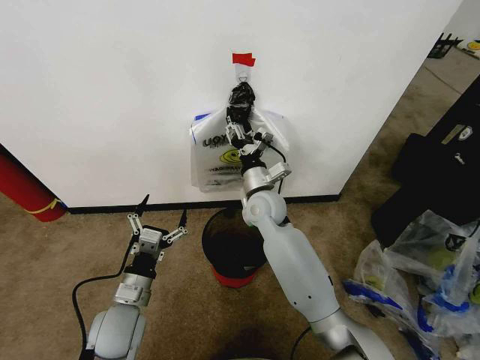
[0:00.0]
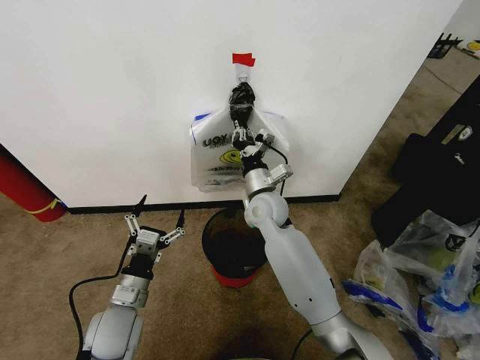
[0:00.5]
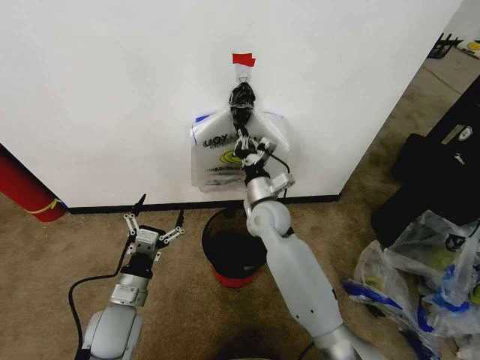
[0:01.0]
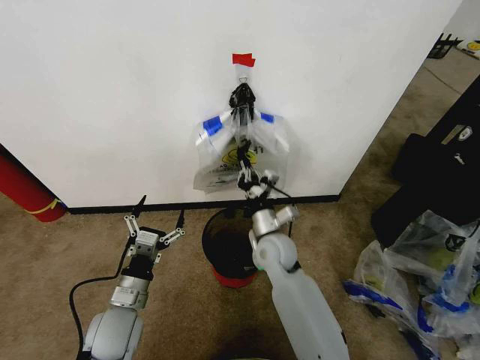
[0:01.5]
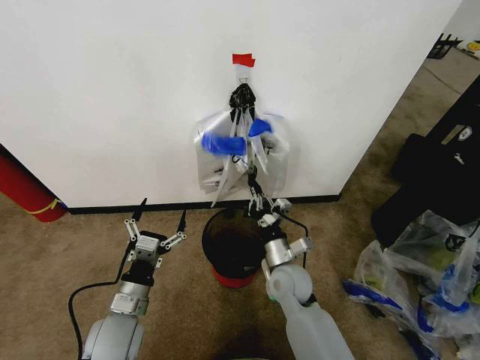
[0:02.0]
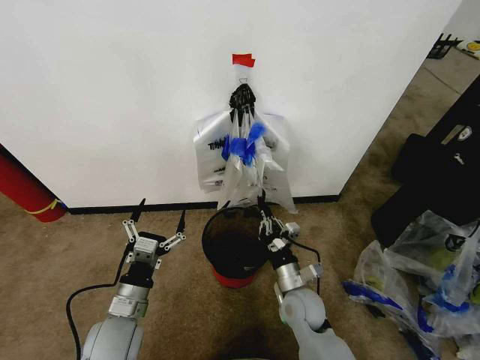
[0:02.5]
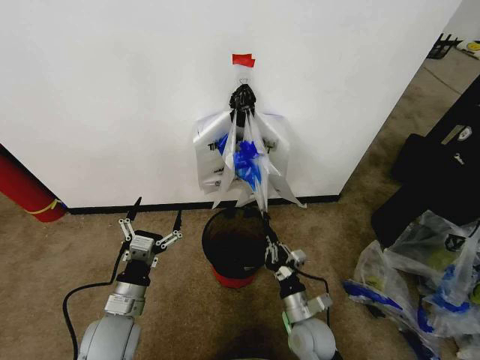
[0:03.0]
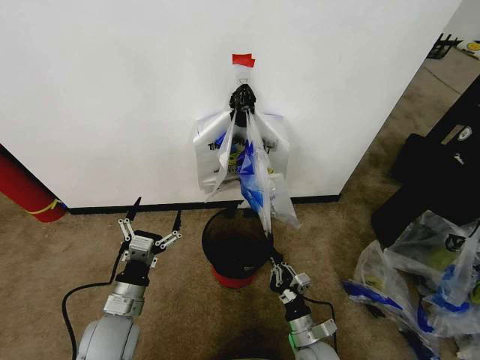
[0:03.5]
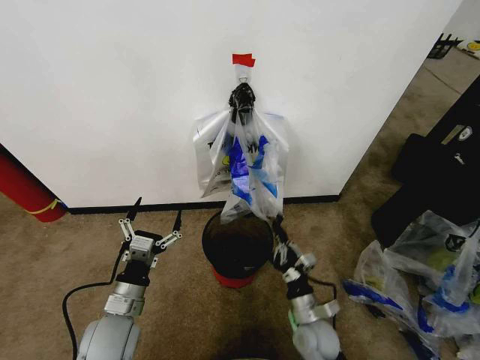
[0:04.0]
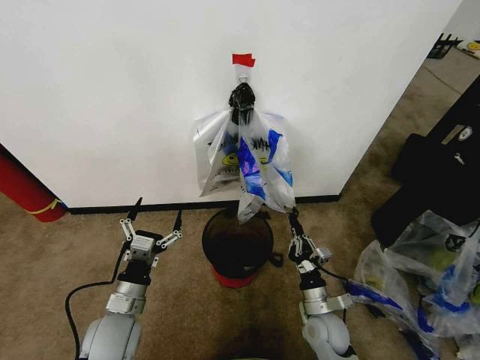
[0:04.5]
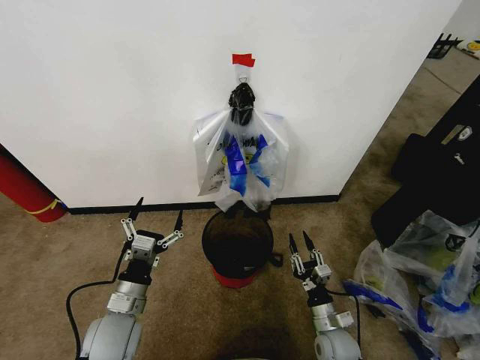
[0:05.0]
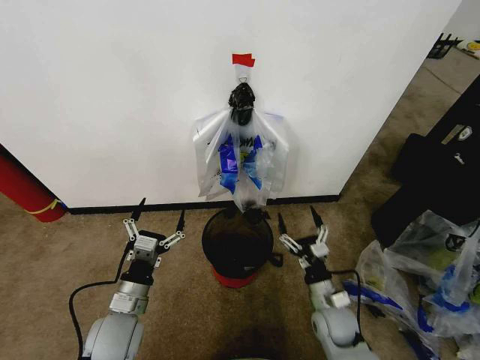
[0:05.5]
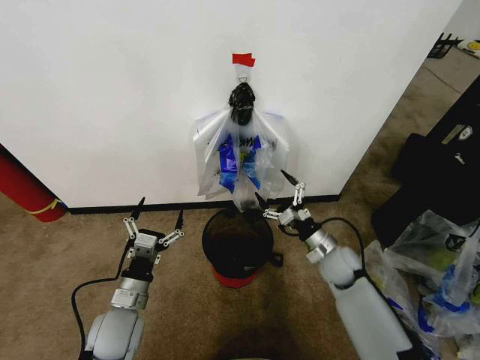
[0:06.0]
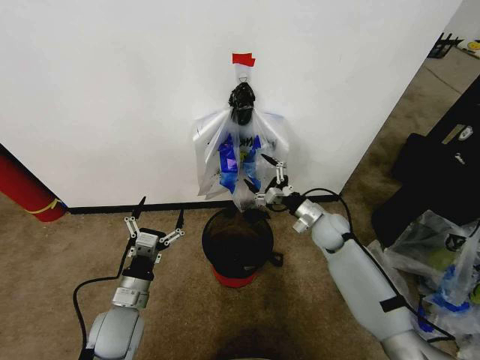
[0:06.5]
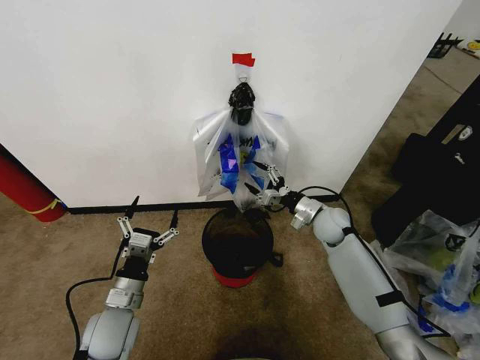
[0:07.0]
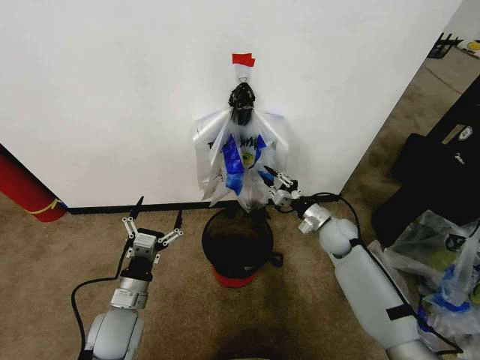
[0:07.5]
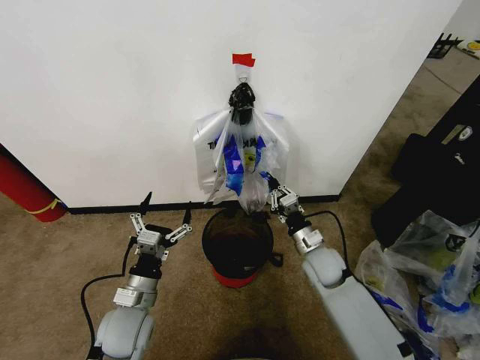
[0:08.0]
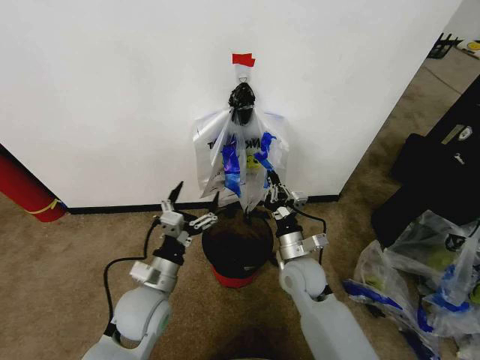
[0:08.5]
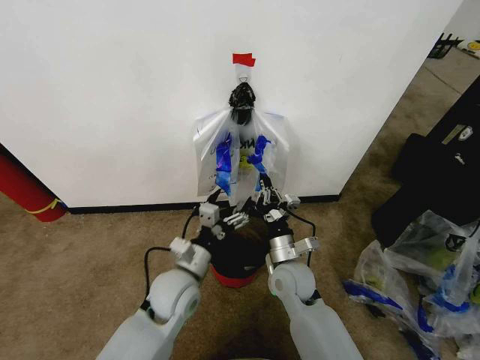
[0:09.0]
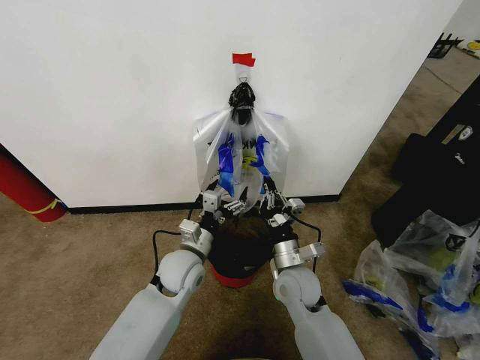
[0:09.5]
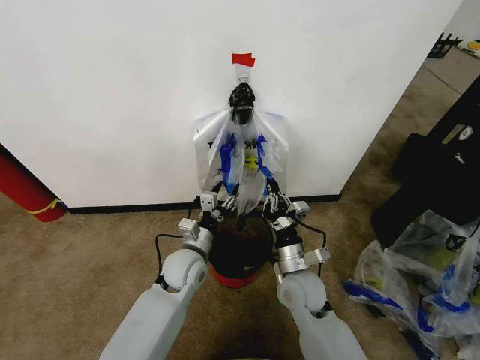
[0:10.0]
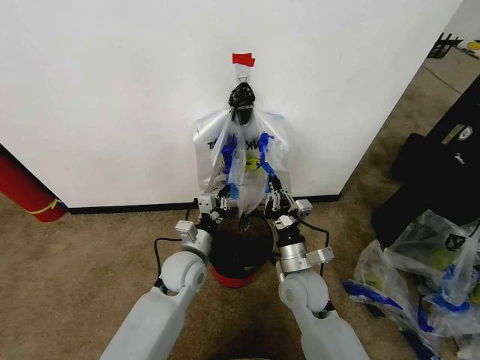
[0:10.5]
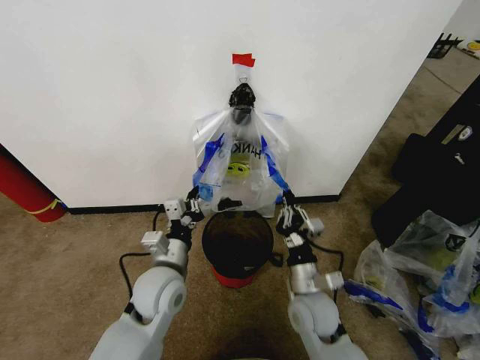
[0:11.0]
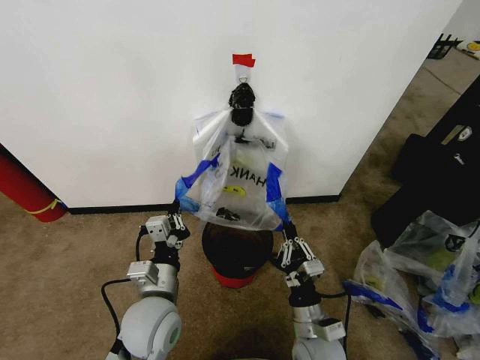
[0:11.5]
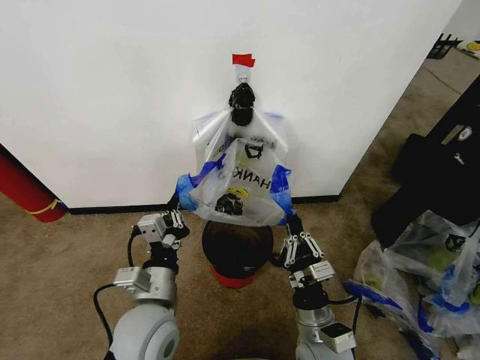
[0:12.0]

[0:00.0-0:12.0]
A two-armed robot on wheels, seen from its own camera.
Task of the whole recording: Pick up the garbage bag from the wall and place it over the trash bin.
0:00.0 to 0:02.0: The right gripper moves backward, downward and to the right, some 20 cm, and closes.
0:02.0 to 0:04.0: The right gripper heads downward, backward and to the right, covering approximately 15 cm.
0:04.0 to 0:06.0: The right gripper moves forward, upward and to the right, approximately 15 cm, and opens up.
0:06.0 to 0:08.0: The right gripper travels forward and back again, about 10 cm each way, and closes up.
0:08.0 to 0:10.0: The right gripper is displaced to the left and backward by approximately 10 cm, while the left gripper is displaced forward and to the right by some 15 cm, and closes its fingers.
0:10.0 to 0:12.0: The left gripper moves backward and upward, roughly 15 cm, and closes up. Meanwhile the right gripper is displaced backward by approximately 10 cm.

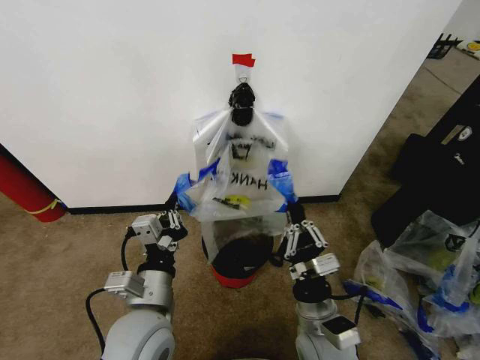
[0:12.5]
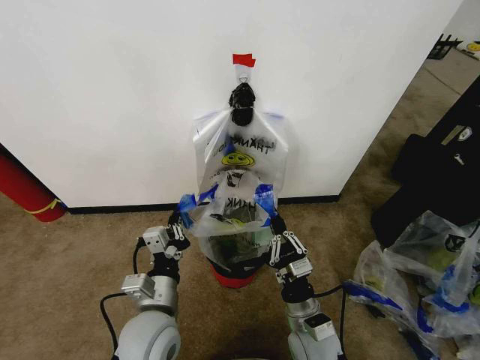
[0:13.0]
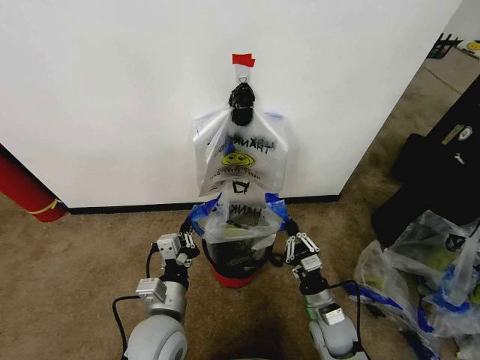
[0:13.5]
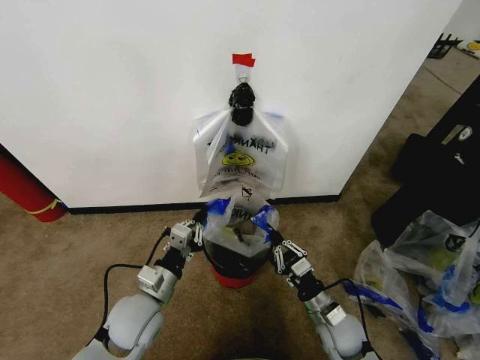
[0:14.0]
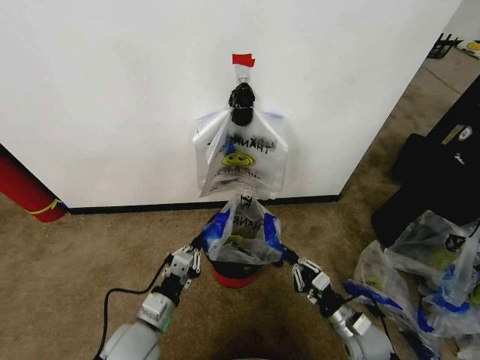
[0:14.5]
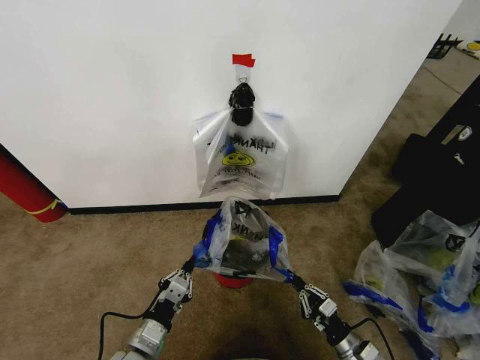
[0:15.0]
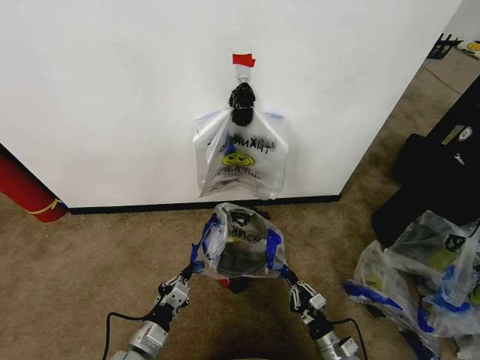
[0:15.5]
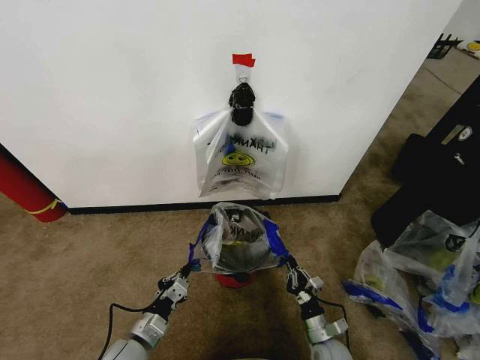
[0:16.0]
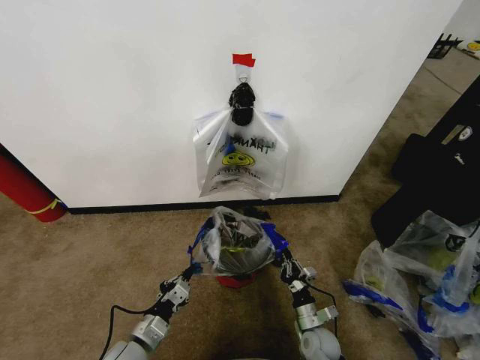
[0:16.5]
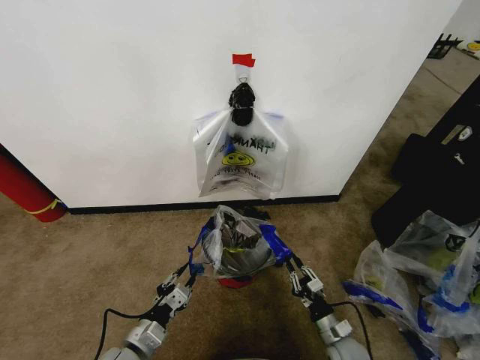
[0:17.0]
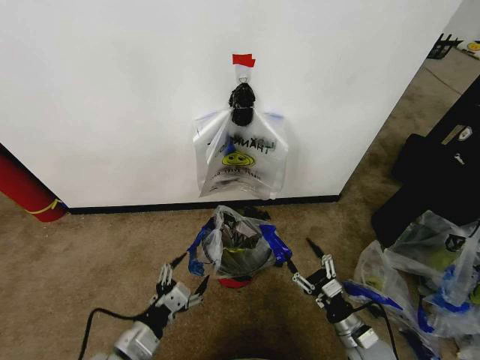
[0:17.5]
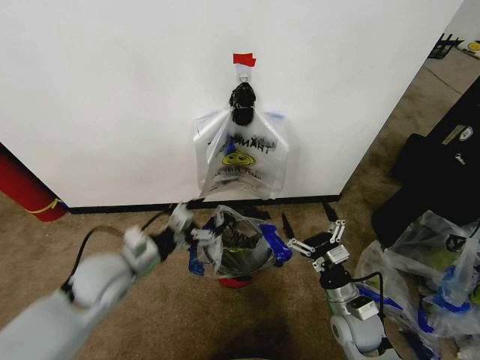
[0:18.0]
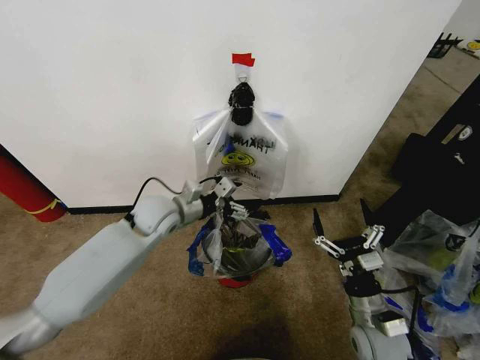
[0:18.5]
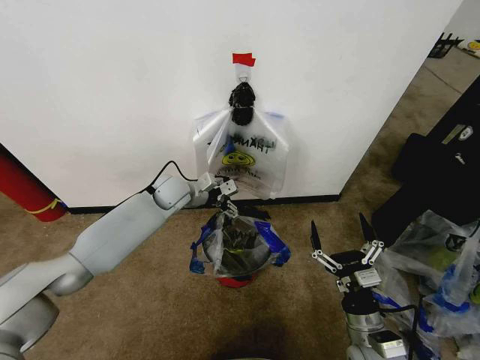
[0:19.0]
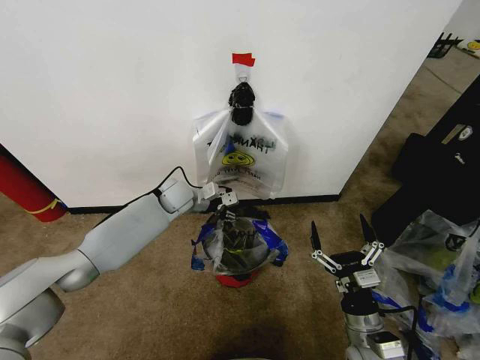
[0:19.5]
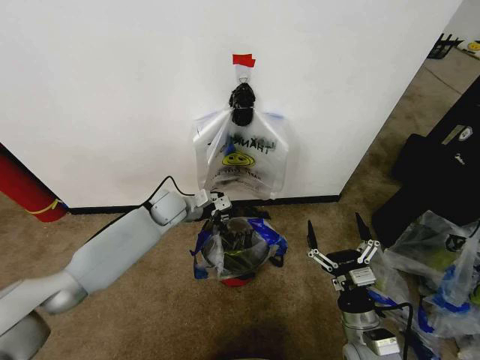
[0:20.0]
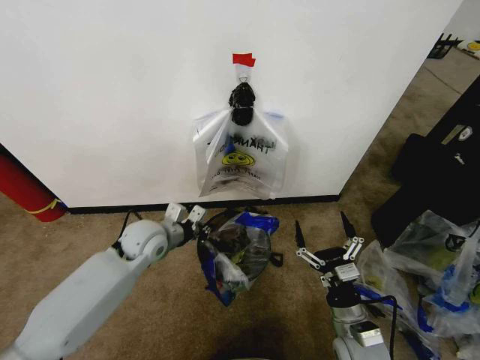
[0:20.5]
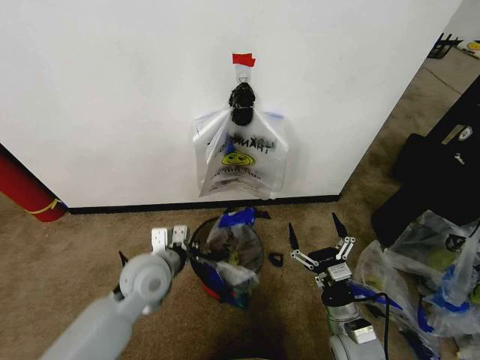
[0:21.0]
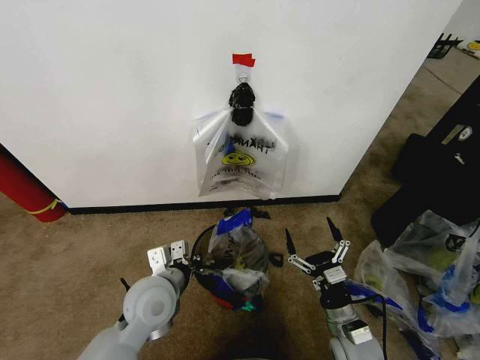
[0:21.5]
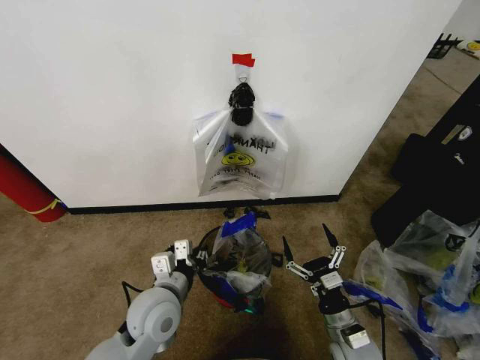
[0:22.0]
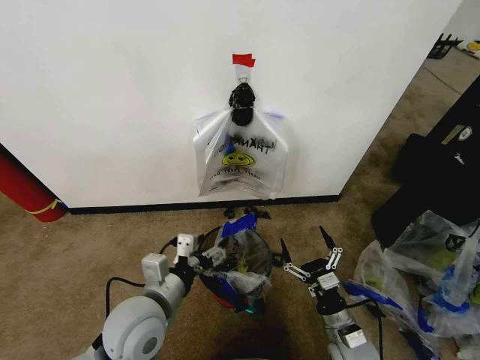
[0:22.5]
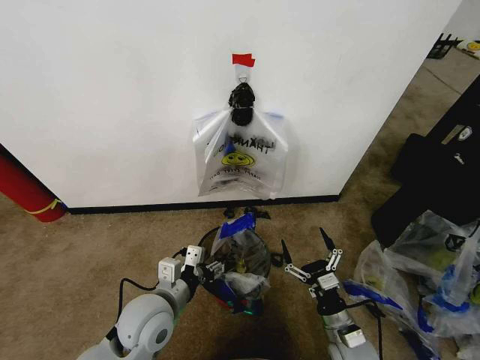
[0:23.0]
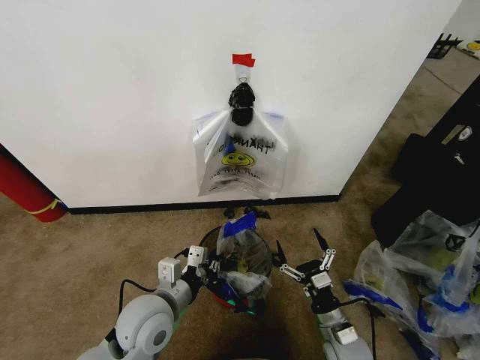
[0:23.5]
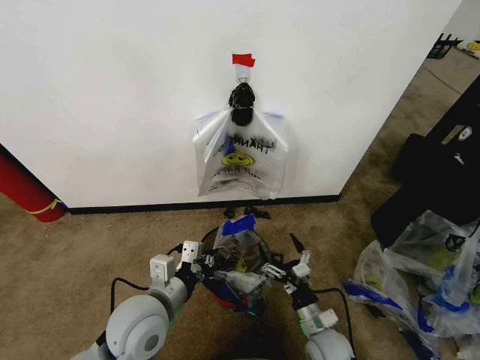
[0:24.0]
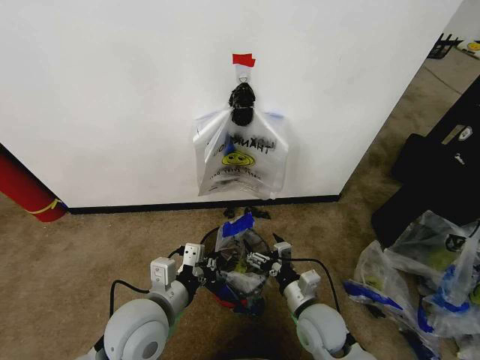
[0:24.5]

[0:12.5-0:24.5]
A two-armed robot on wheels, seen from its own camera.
Task of the whole recording: Pick up the garbage bag from the wall and place it over the trash bin.
0:12.5 to 0:14.5: The right gripper moves to the right and downward, roughly 20 cm; the left gripper travels downward and to the left by some 10 cm.
0:14.5 to 0:16.5: The right gripper goes approximately 10 cm downward and to the left. Meanwhile the left gripper heads downward, covering approximately 10 cm.
0:16.5 to 0:18.5: The right gripper moves upward, approximately 20 cm, and opens up. Meanwhile the left gripper shifts some 35 cm forward and upward, and opens its fingers.
0:18.5 to 0:20.5: The left gripper heads downward, covering approximately 5 cm, reaches roughly 10 cm forward, then returns, and closes up.
0:20.5 to 0:22.5: The left gripper travels backward by some 20 cm, and opens its fingers. The right gripper travels downward by some 5 cm.
0:22.5 to 0:24.5: The left gripper closes. The right gripper is displaced to the left and upward by about 10 cm.

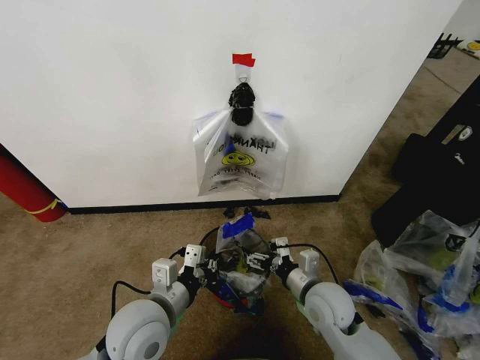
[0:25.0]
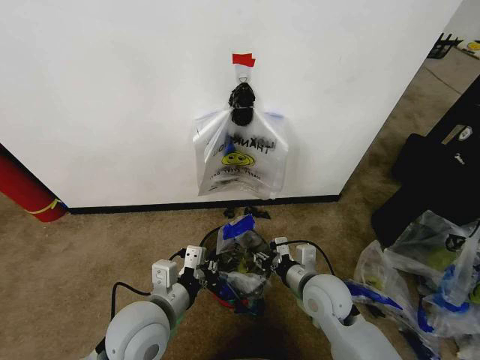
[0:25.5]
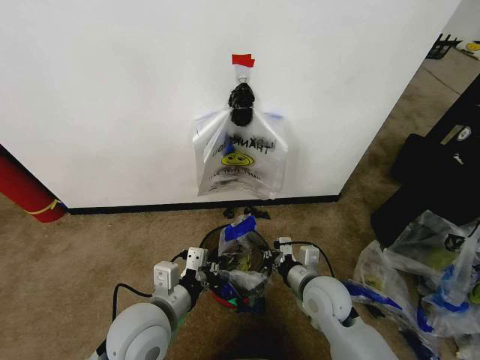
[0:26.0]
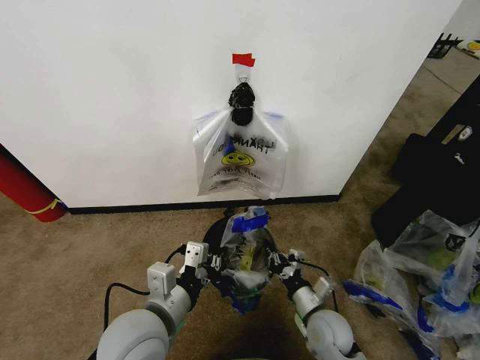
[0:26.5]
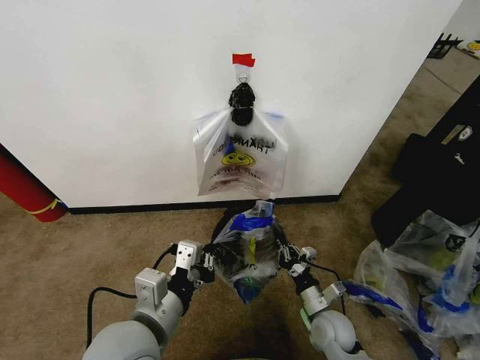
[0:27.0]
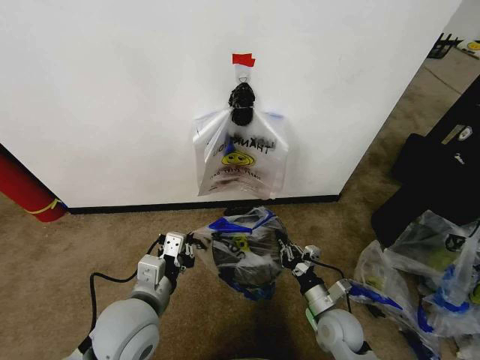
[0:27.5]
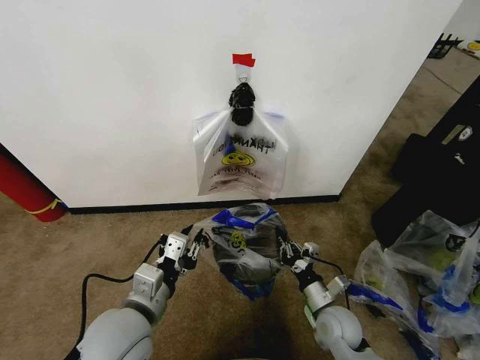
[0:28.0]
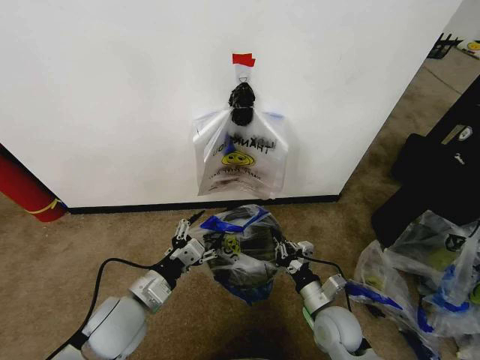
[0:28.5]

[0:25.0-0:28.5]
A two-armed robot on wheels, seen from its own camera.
Task of the whole recording: Pick up the garbage bag from the wall and place it over the trash bin.
0:25.0 to 0:27.0: The left gripper ends up some 5 cm from where it was. The right gripper heads downward, covering approximately 10 cm, and closes its fingers.
0:27.0 to 0:28.5: The left gripper is displaced downward, forward and to the left by roughly 15 cm, and opens.
